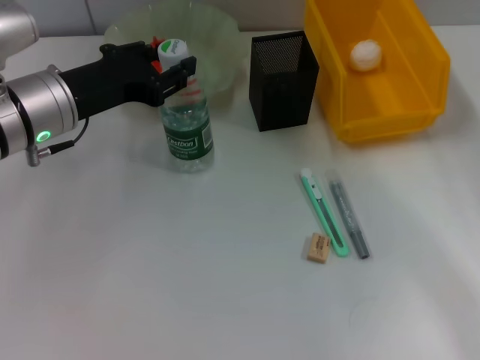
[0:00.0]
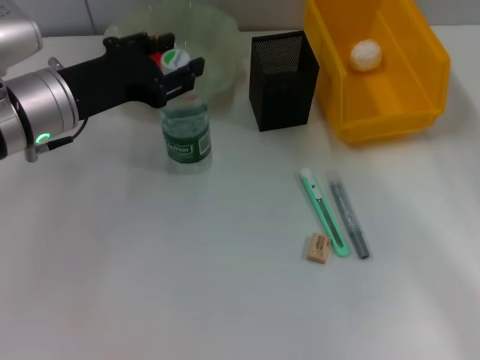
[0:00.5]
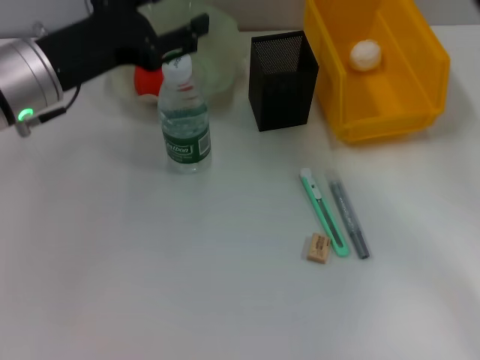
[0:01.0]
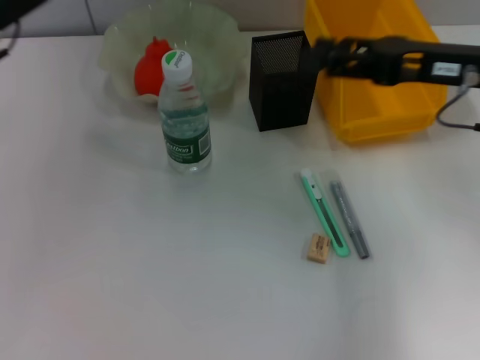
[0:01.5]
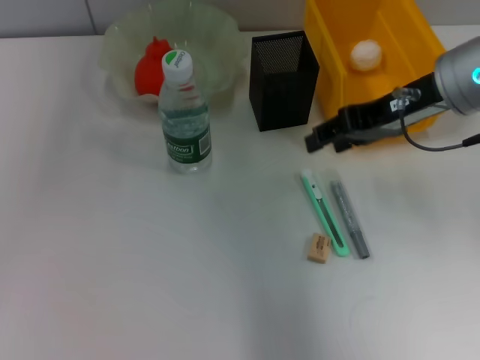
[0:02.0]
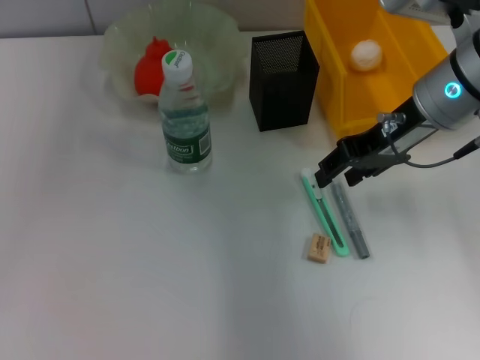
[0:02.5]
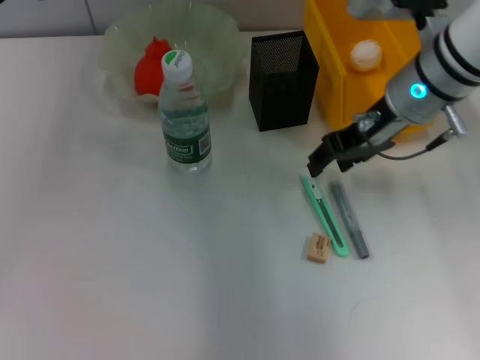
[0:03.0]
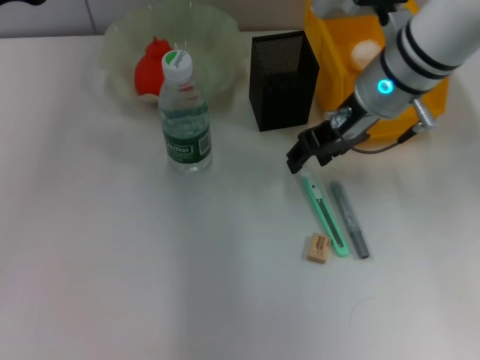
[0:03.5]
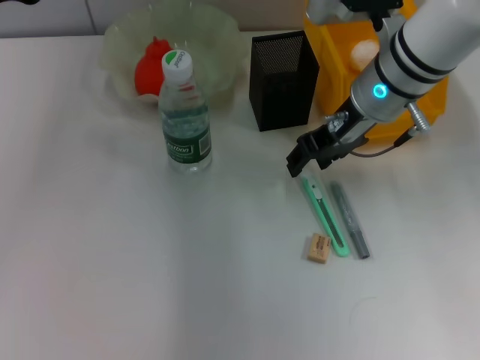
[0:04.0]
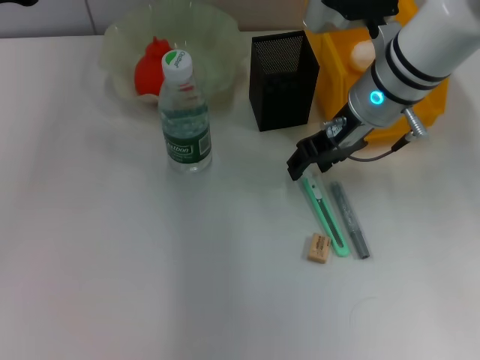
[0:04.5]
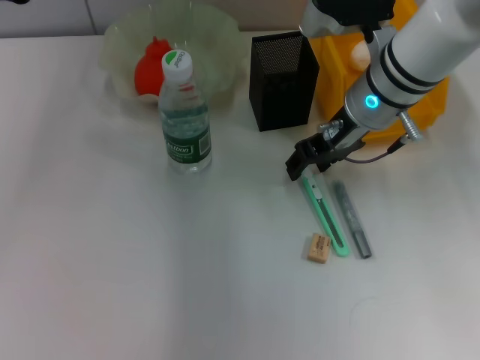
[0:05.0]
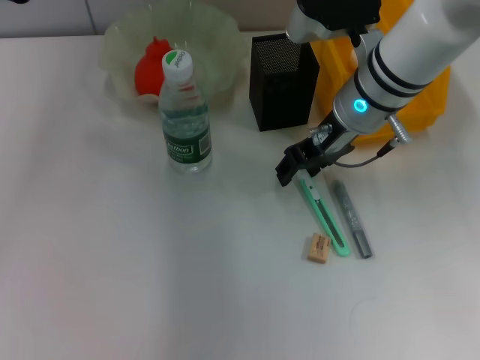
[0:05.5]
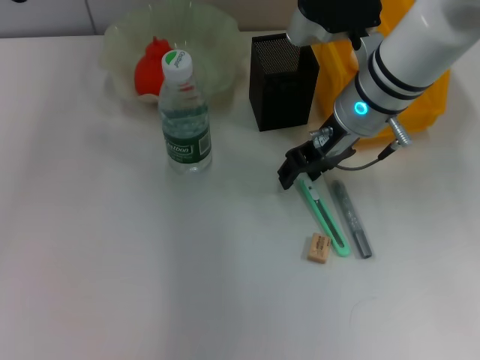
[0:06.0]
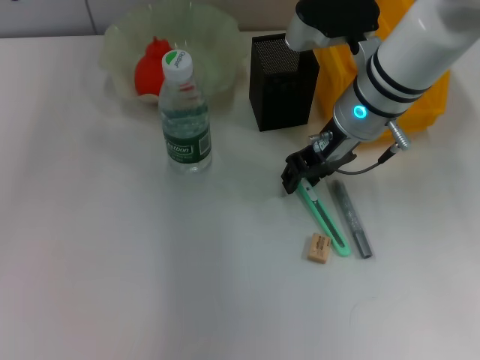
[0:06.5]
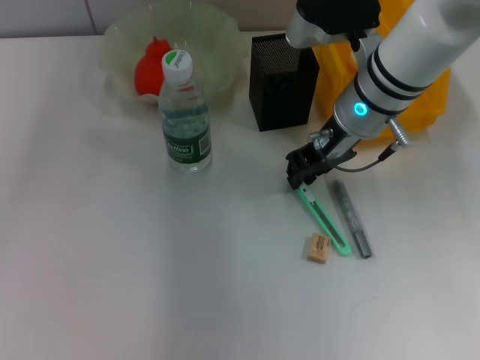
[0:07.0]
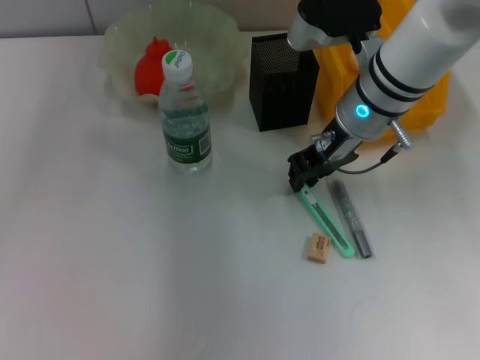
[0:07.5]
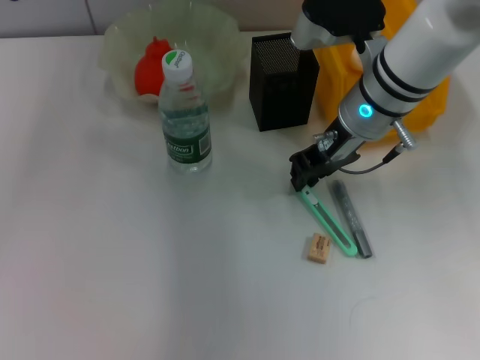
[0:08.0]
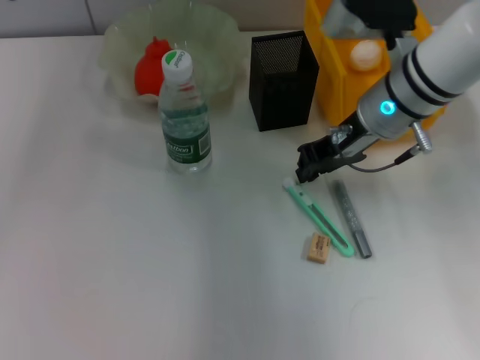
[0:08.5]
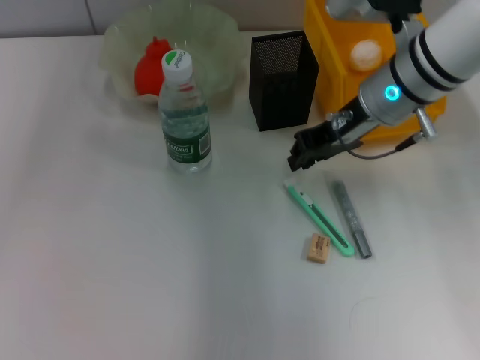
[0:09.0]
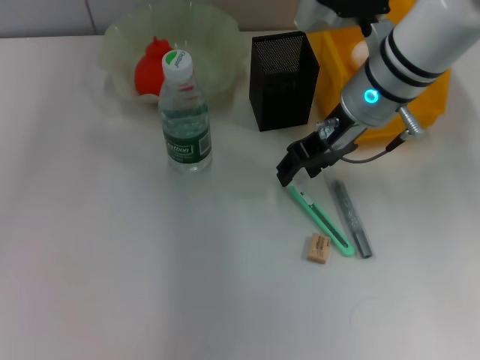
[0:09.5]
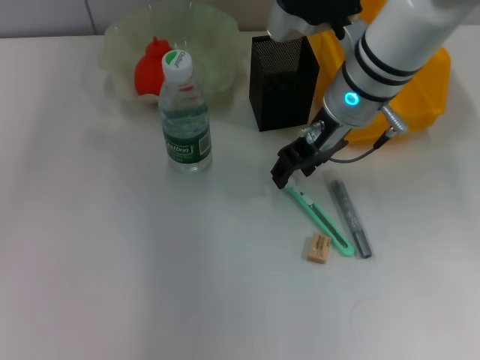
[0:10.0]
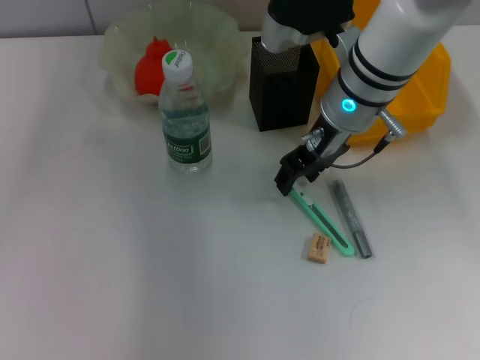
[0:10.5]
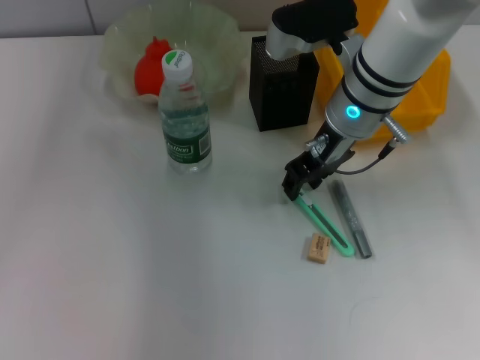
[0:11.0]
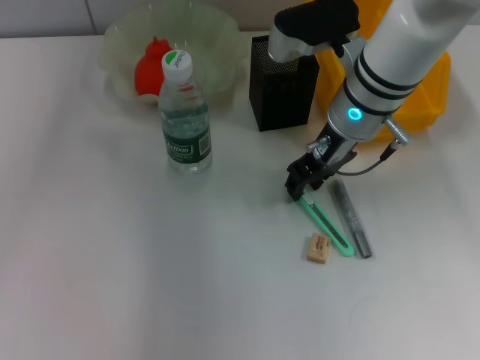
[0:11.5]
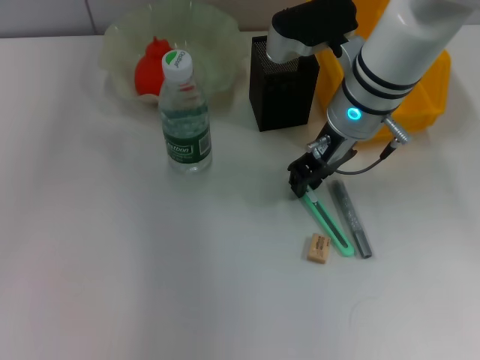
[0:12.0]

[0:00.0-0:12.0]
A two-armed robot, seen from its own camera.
0.0 to 2.0 s: The left gripper moves to the left and upward, about 10 cm, and opens up. Meanwhile the right gripper moves to the left, upward and forward, about 15 cm.
2.0 to 4.0 s: The right gripper travels to the left by about 5 cm.
4.0 to 6.0 s: There are only small adjustments of the grippers.
6.0 to 8.0 s: The right gripper closes up.
8.0 to 10.0 s: The right gripper opens.
10.0 to 12.0 s: The right gripper closes its fingers.

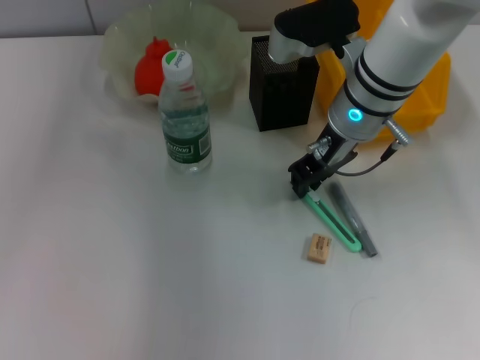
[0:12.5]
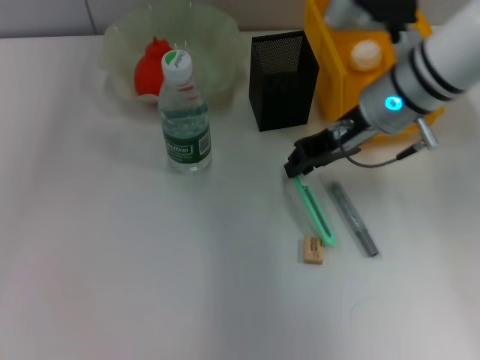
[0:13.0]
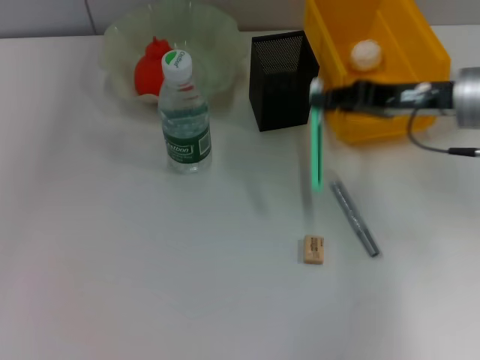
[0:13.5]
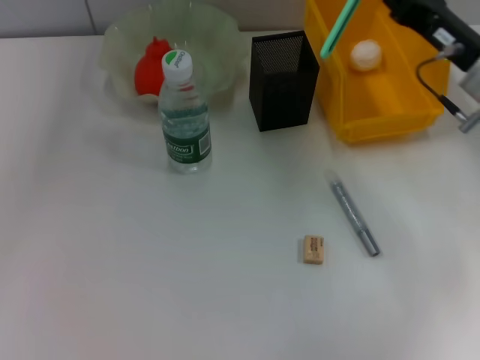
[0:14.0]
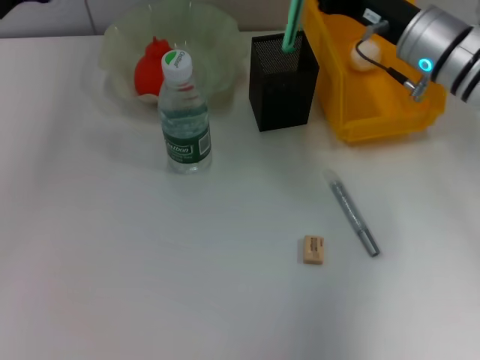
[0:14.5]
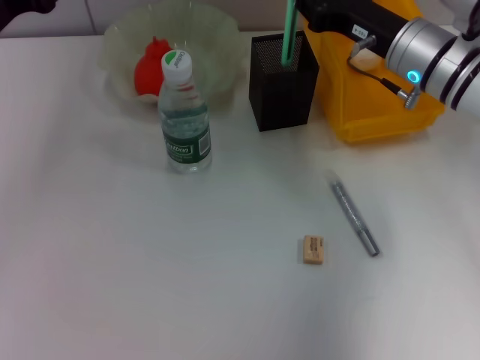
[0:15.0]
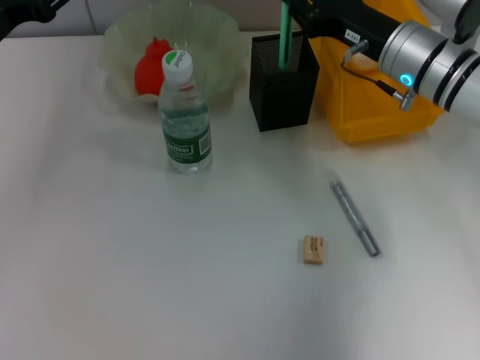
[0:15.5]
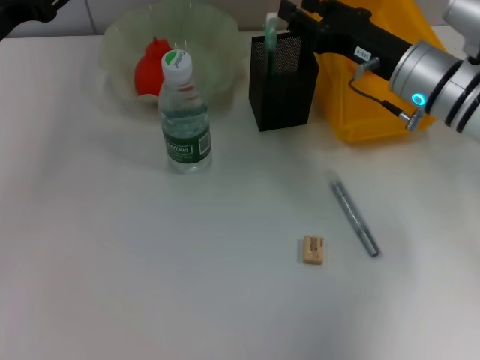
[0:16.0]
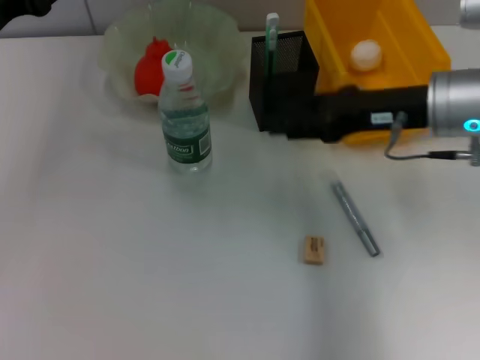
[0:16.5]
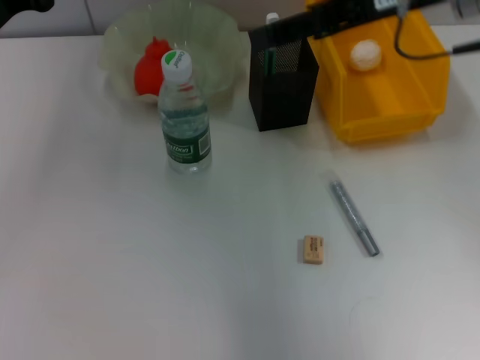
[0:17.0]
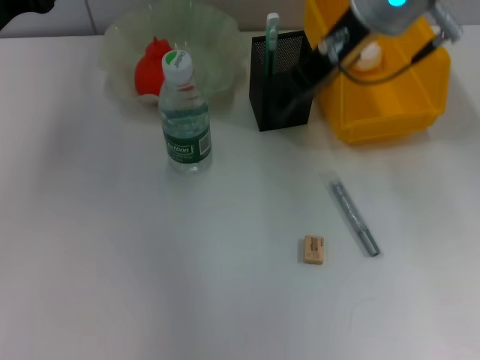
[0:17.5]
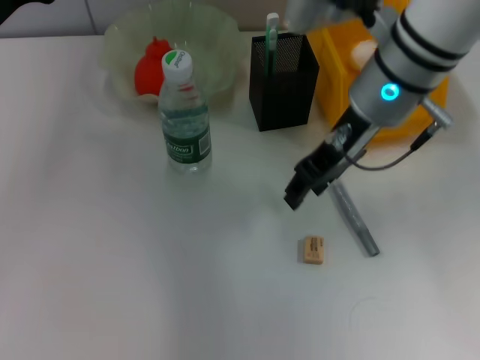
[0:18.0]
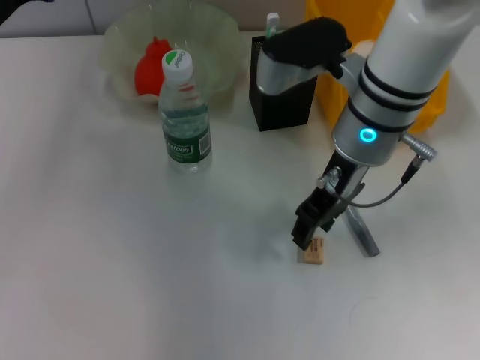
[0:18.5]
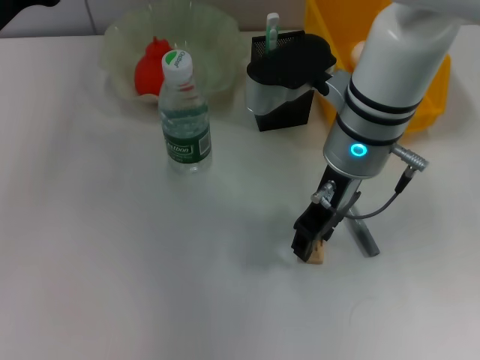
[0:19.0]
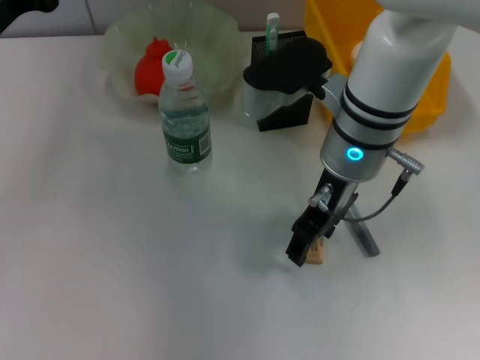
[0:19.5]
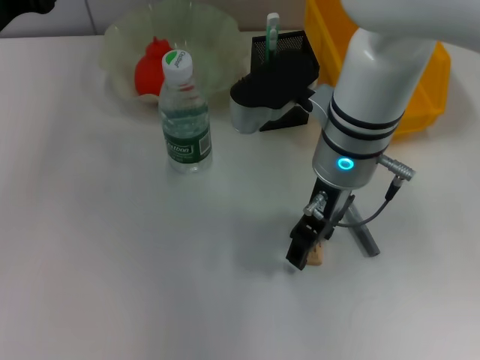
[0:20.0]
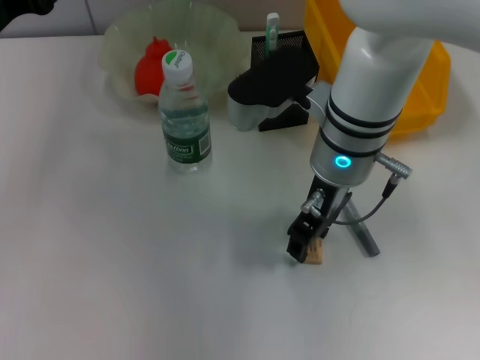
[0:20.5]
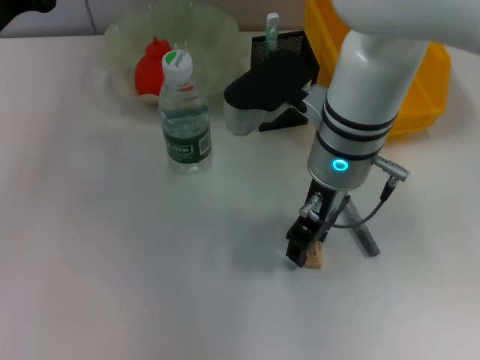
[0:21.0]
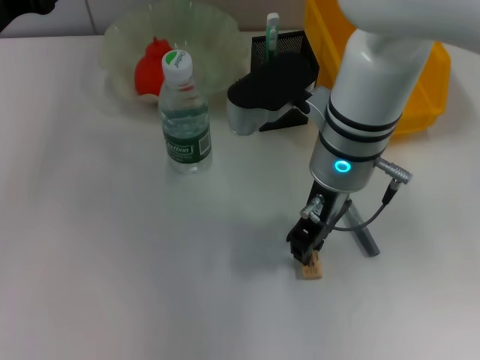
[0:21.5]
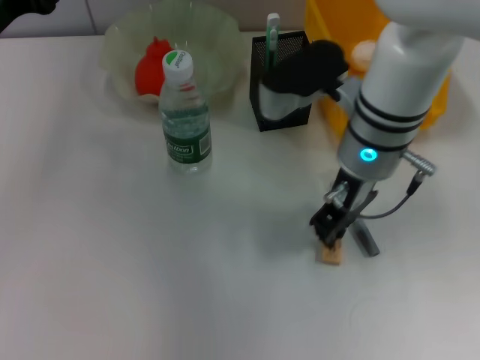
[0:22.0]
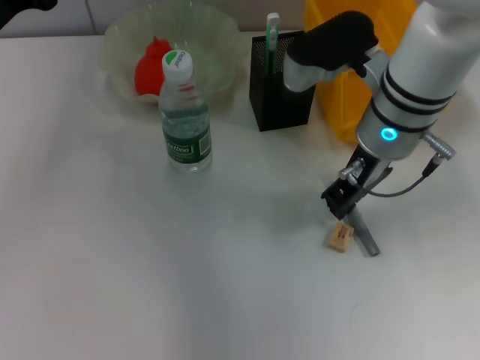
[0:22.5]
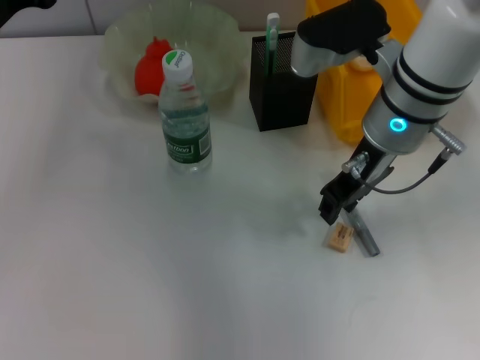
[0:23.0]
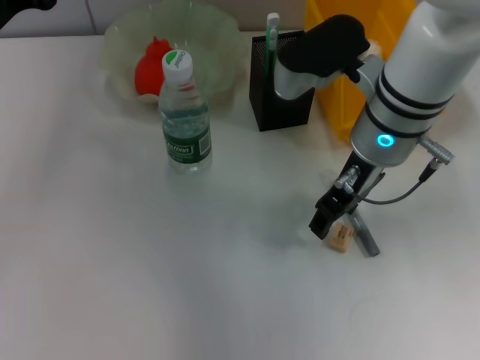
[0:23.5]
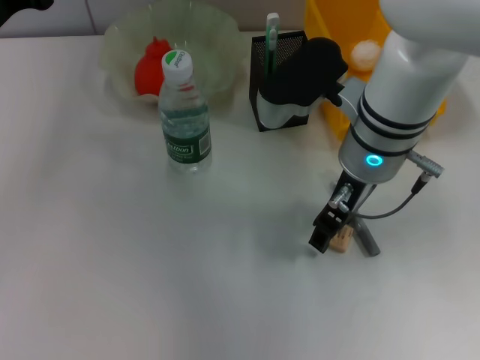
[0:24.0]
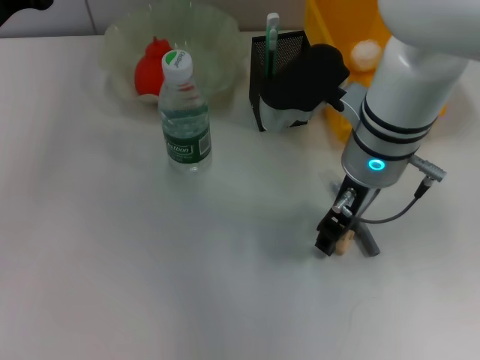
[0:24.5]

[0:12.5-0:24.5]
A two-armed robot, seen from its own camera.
Step, 13.0 to 16.0 s: Place the blue utility knife into the pen holder with the right hand.
12.5 to 14.5 s: The right gripper heads to the right, covering approximately 10 cm.
14.5 to 16.5 s: The right gripper heads backward, covering about 5 cm, and opens up.
16.5 to 18.5 s: The right gripper is displaced to the left by approximately 10 cm, and moves approximately 15 cm upward and comes back.
18.5 to 20.5 s: There are only small adjustments of the grippers.
20.5 to 22.5 s: The right gripper shifts by about 5 cm, and closes up.
22.5 to 24.5 s: The right gripper opens.

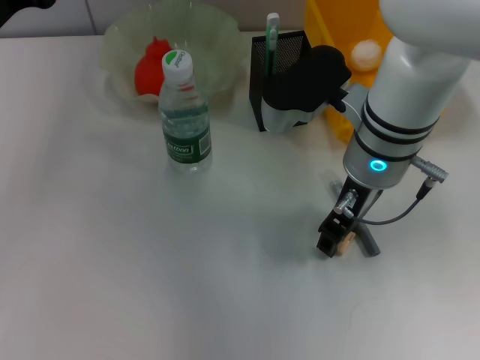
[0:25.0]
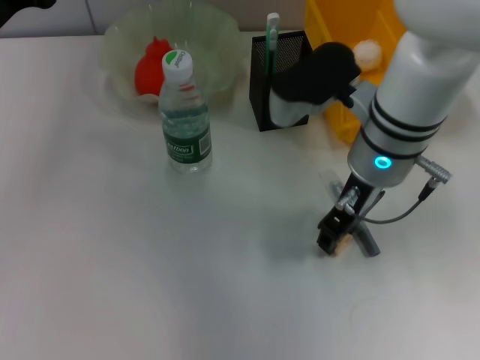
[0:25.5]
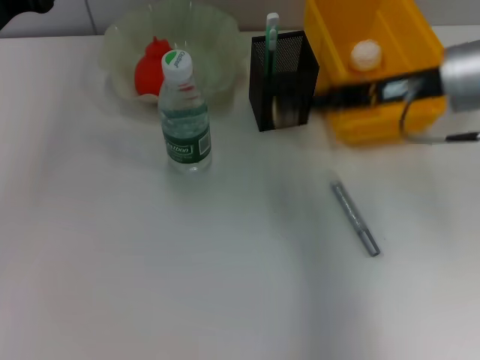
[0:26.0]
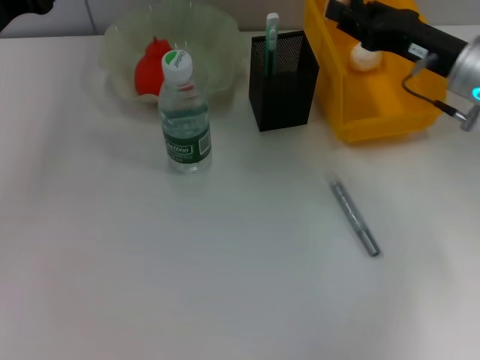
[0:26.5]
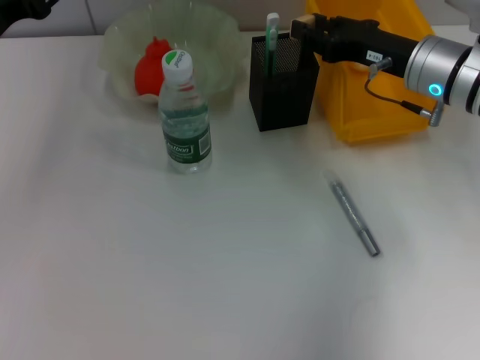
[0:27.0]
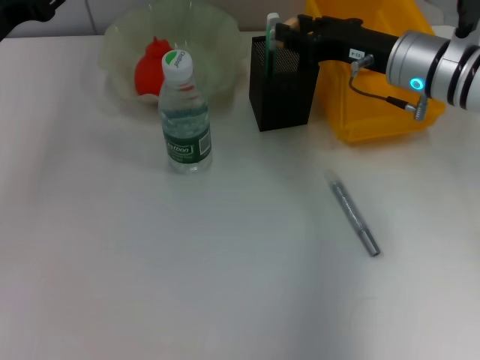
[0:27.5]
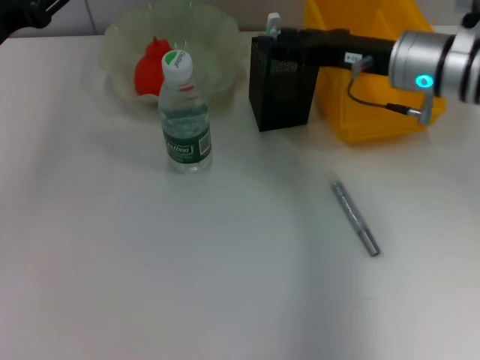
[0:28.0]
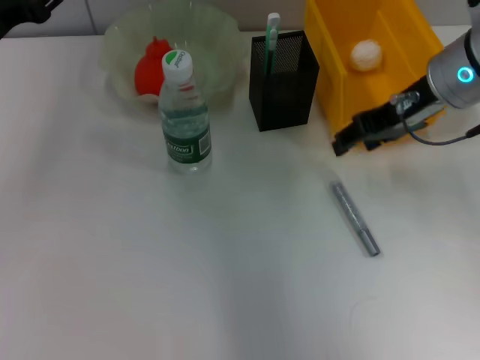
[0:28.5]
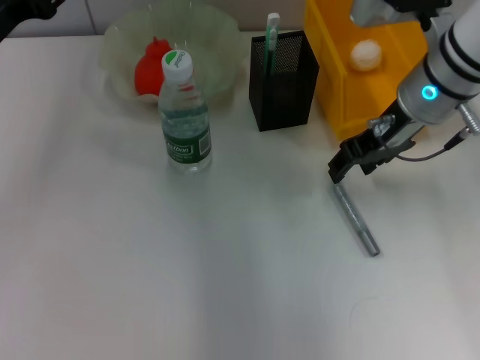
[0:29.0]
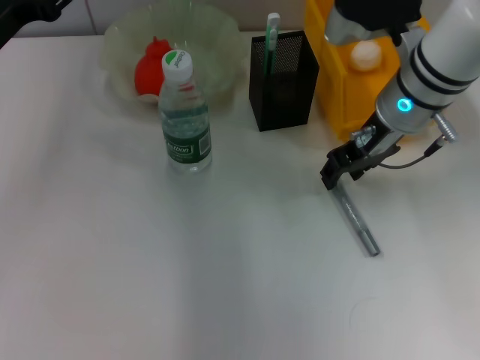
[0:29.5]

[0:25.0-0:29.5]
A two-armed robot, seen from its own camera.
Step, 25.5 to 27.5 s: Put the eraser into the pen holder with the right hand.
25.0 to 27.0 s: The right gripper shifts about 10 cm to the right and forward.
27.0 to 29.5 s: The right gripper moves to the left, about 5 cm.
